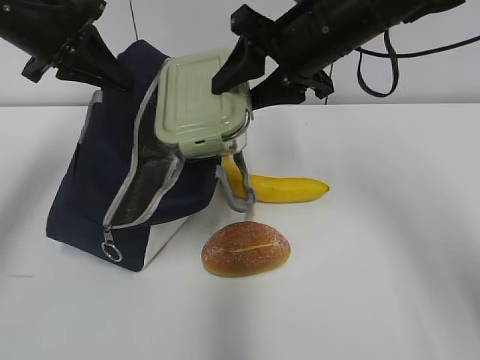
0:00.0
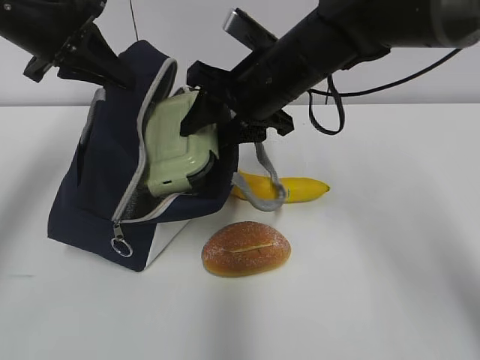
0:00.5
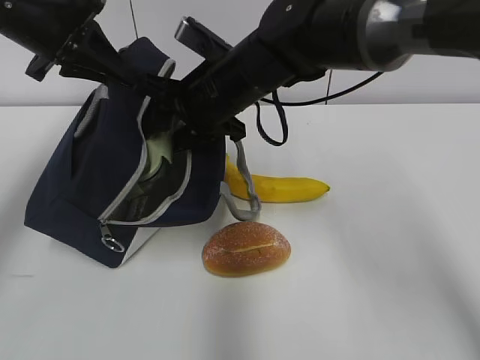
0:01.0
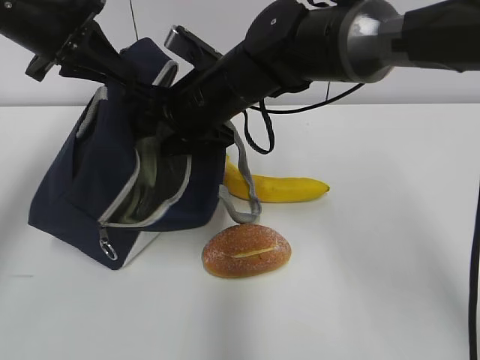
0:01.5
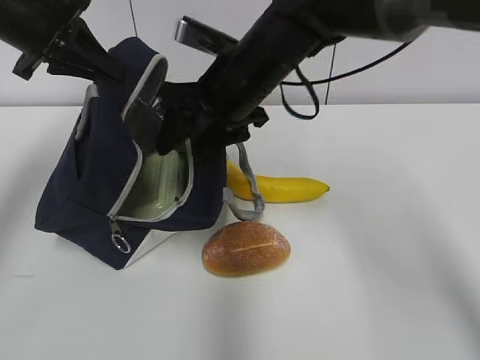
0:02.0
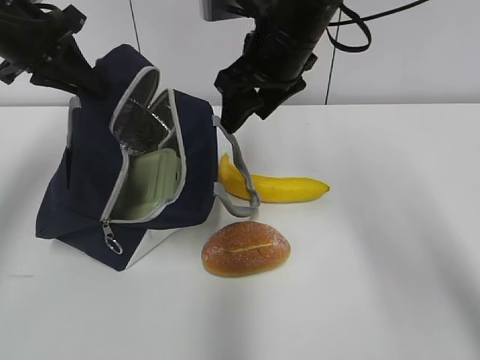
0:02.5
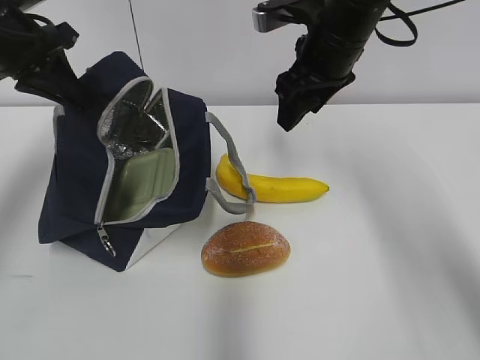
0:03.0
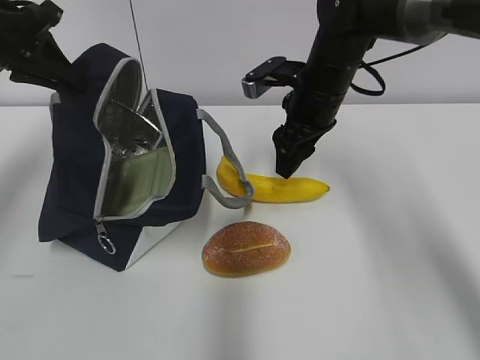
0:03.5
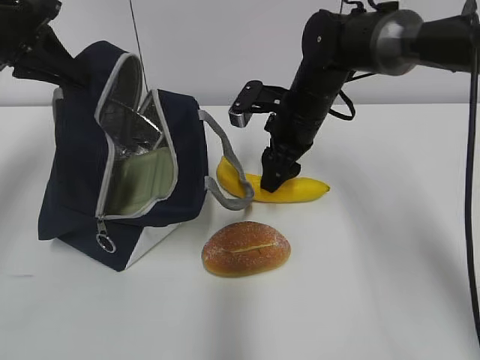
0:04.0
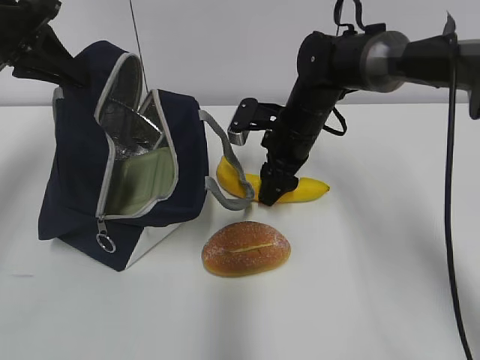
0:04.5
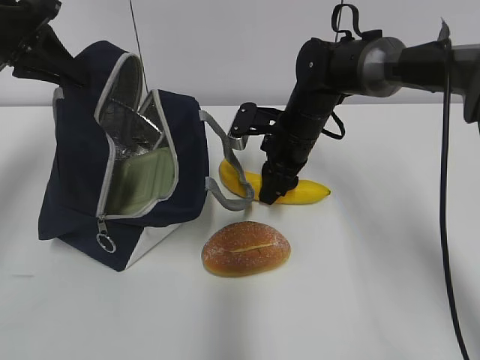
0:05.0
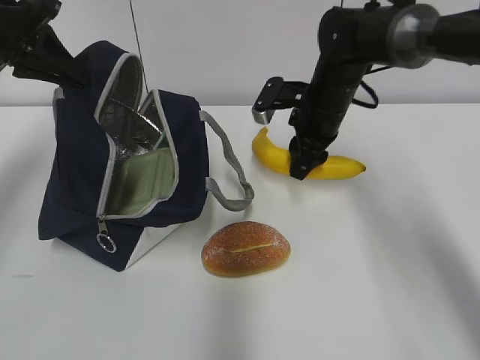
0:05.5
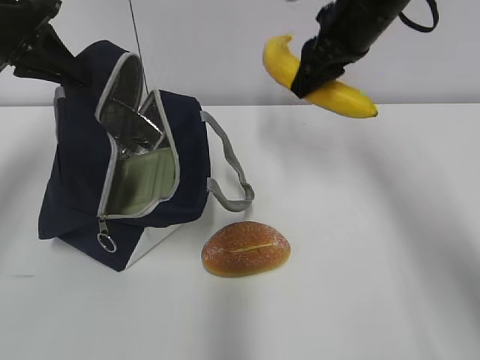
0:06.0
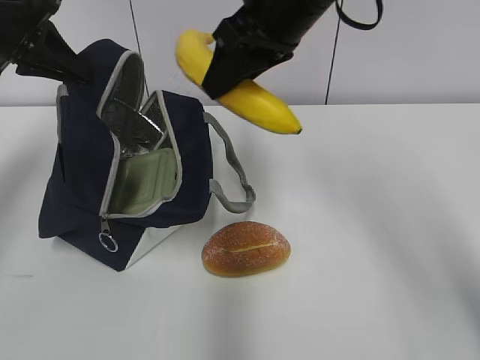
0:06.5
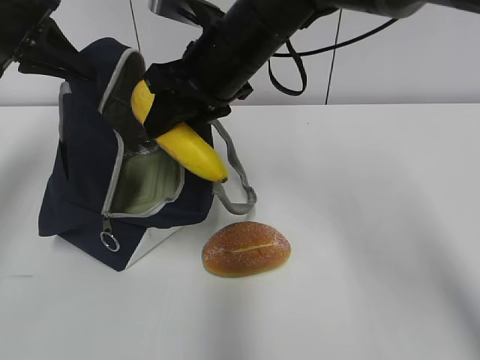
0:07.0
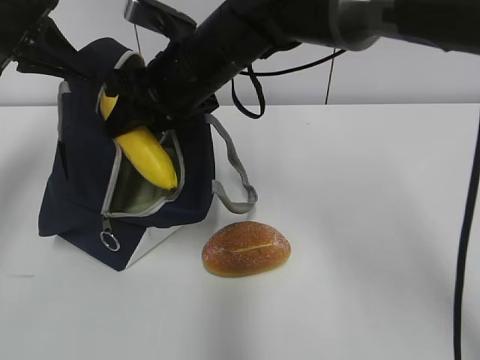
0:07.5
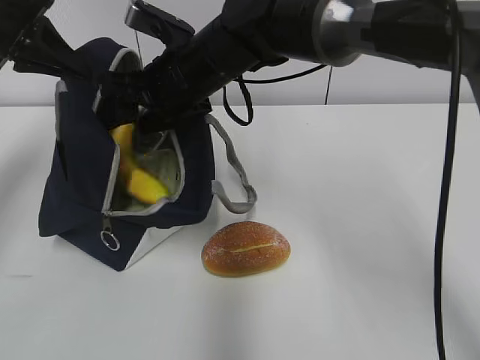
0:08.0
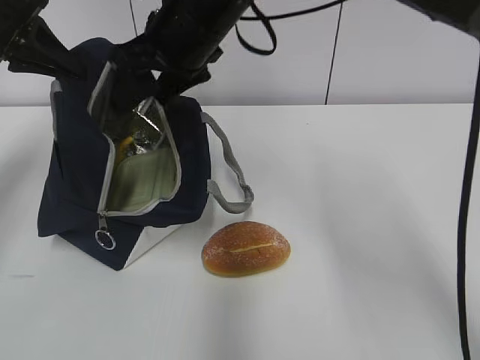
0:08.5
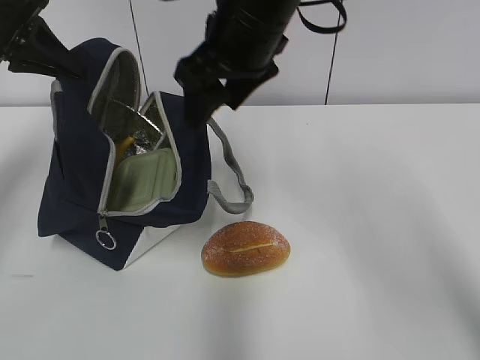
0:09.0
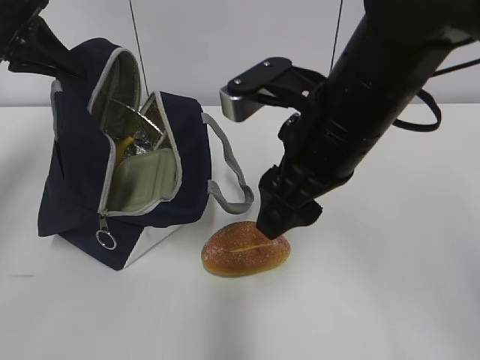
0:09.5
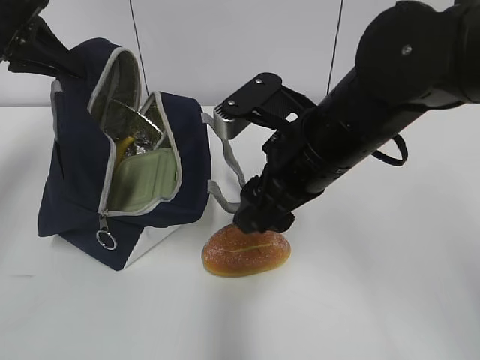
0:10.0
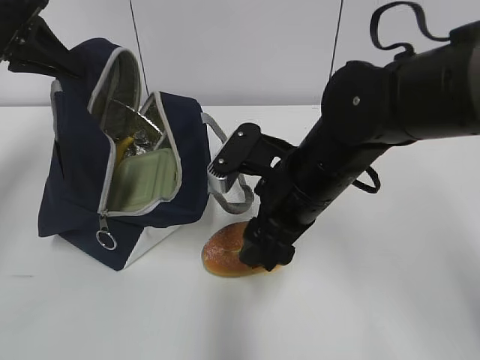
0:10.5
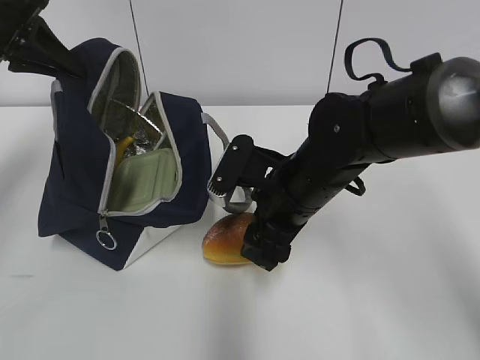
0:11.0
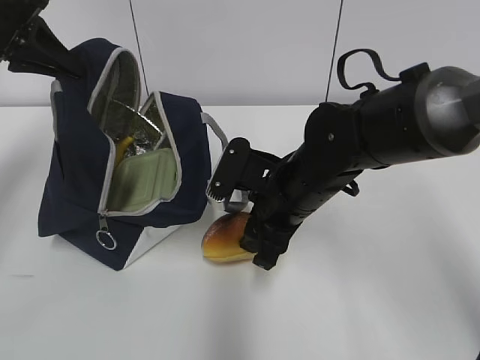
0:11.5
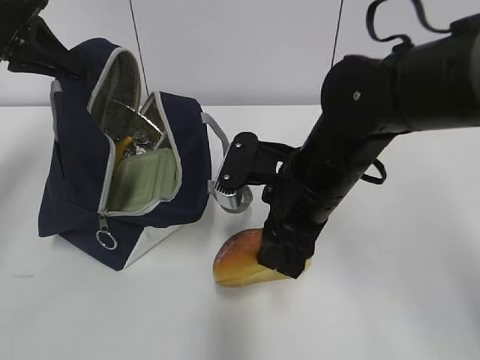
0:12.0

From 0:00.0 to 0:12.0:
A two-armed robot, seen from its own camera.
From 0:00.0 to 0:02.0: The right gripper heads to the left and downward, covering approximately 10 cm.
From 0:02.0 to 0:04.0: The right gripper goes some 15 cm to the right, downward and forward.
From 0:04.0 to 0:06.0: The right gripper shifts approximately 15 cm upward.
From 0:06.0 to 0:08.0: The right gripper heads to the left, covering about 20 cm.
From 0:08.0 to 0:10.0: The right gripper travels to the right and backward by some 15 cm.
From 0:10.0 to 0:12.0: The right gripper shifts some 5 cm downward.

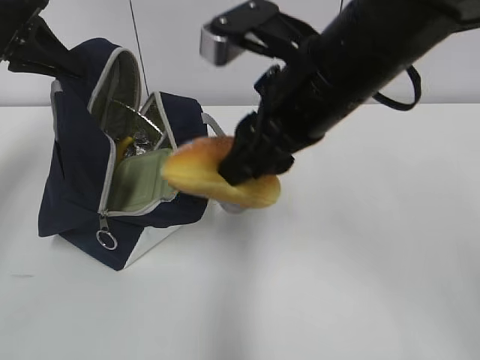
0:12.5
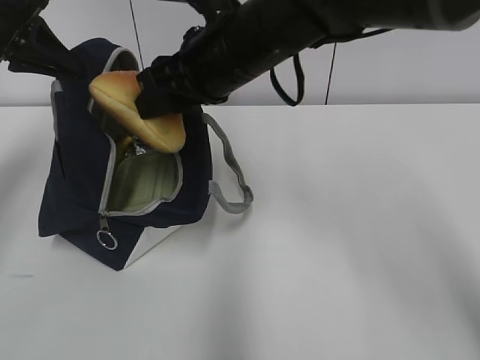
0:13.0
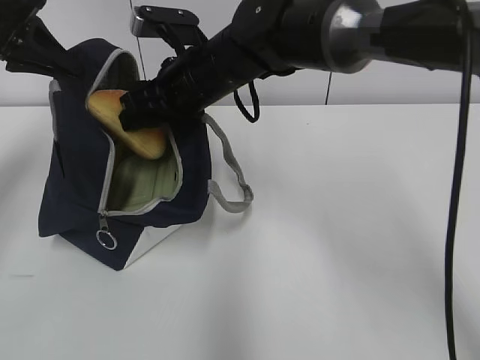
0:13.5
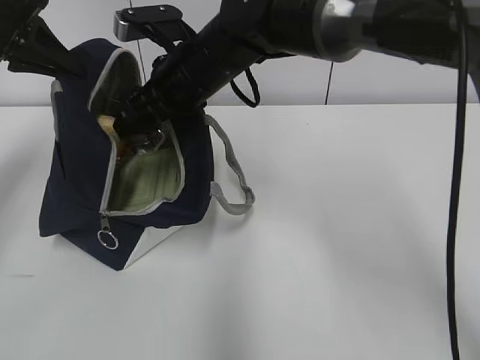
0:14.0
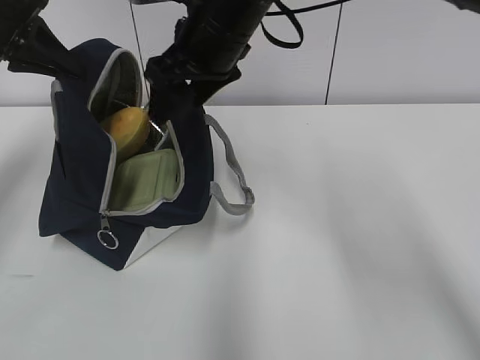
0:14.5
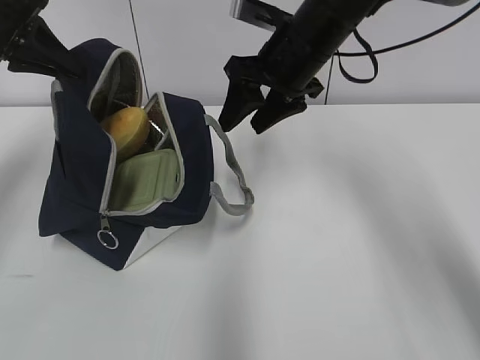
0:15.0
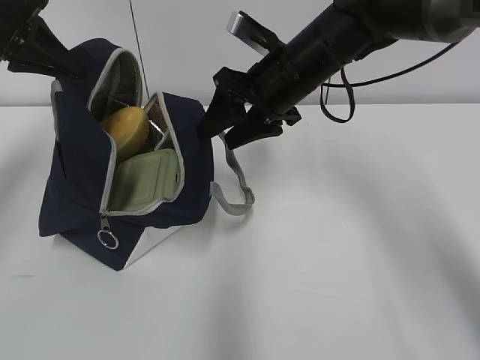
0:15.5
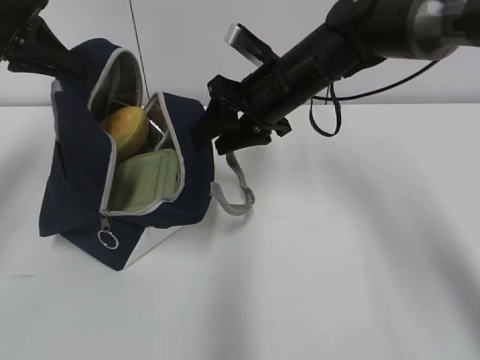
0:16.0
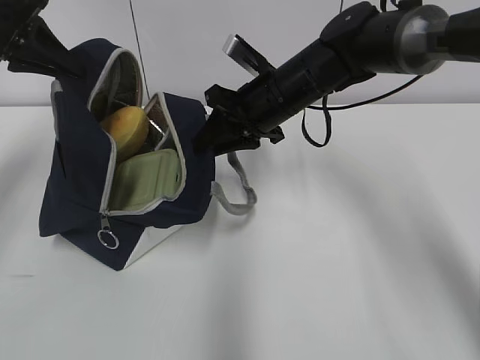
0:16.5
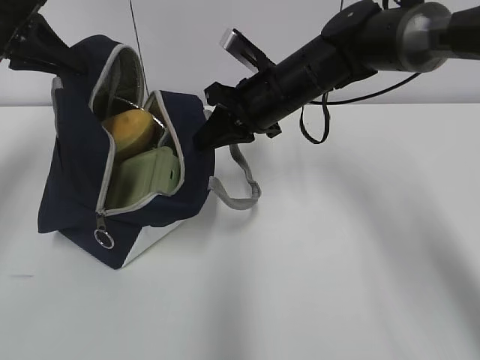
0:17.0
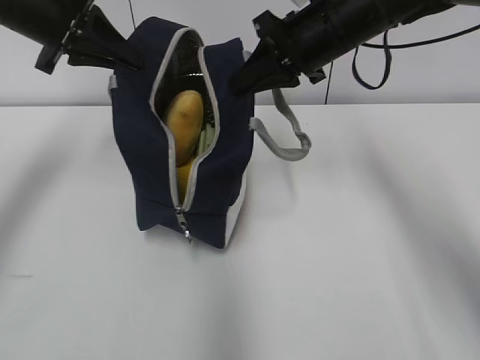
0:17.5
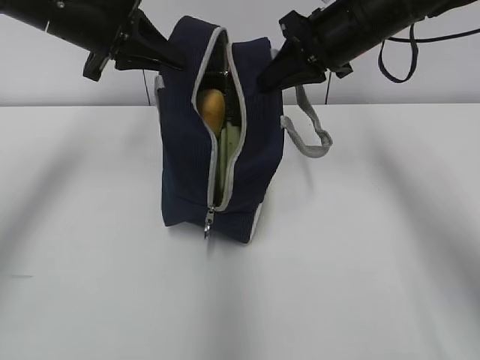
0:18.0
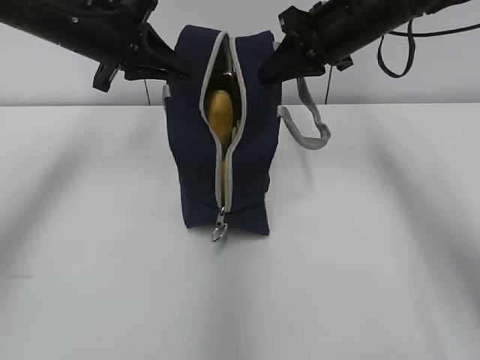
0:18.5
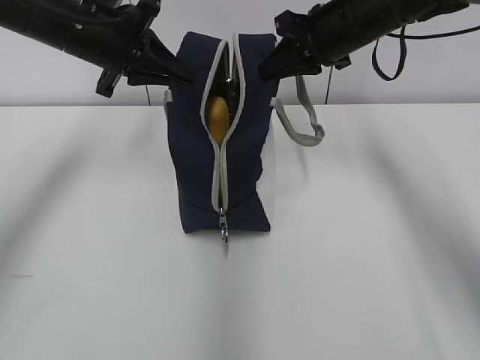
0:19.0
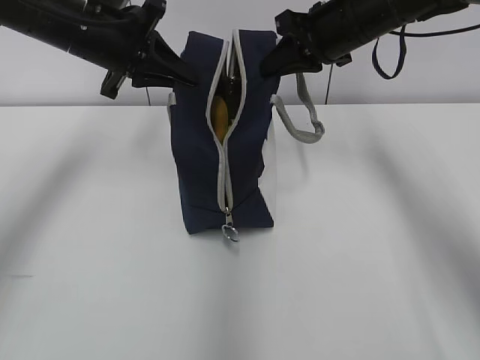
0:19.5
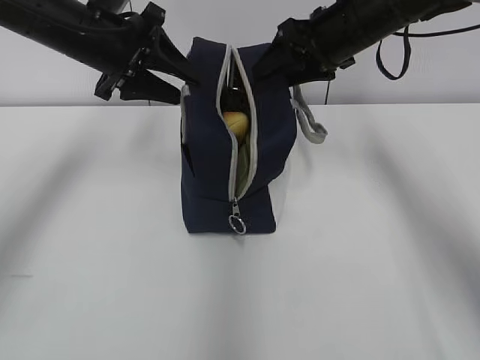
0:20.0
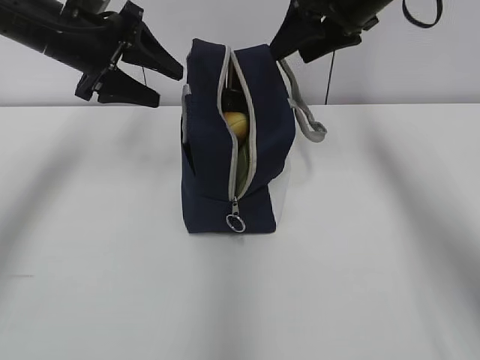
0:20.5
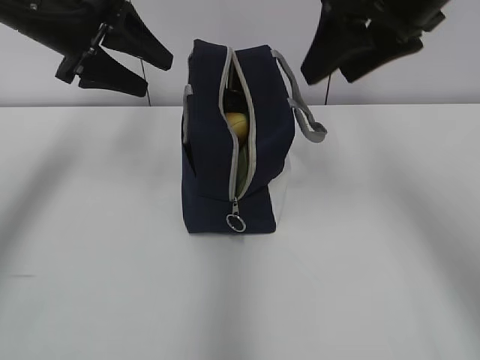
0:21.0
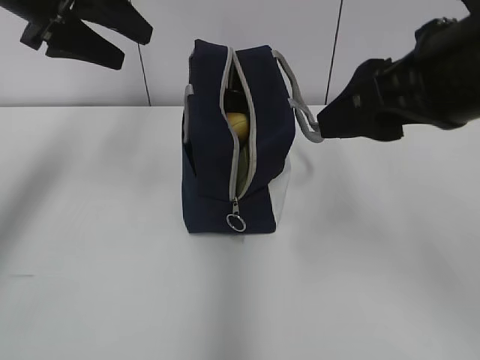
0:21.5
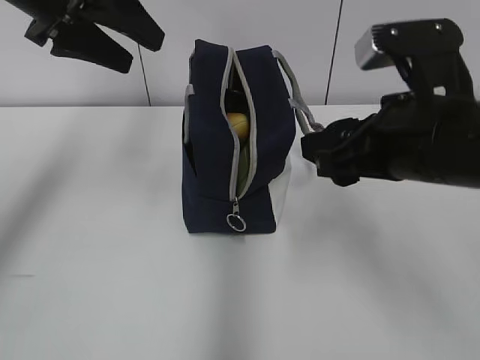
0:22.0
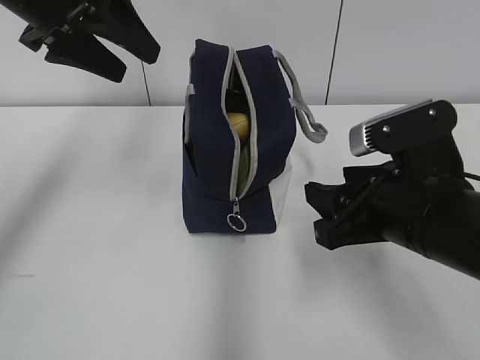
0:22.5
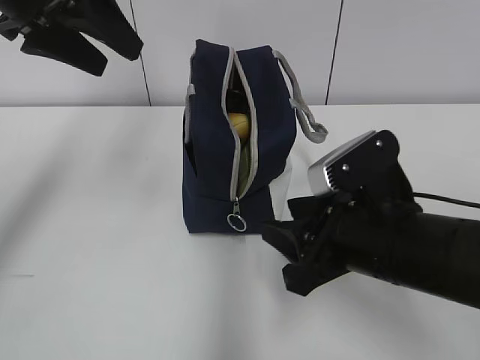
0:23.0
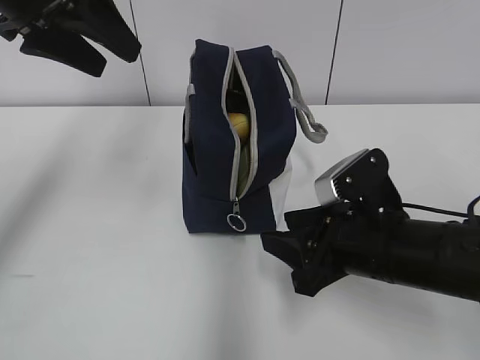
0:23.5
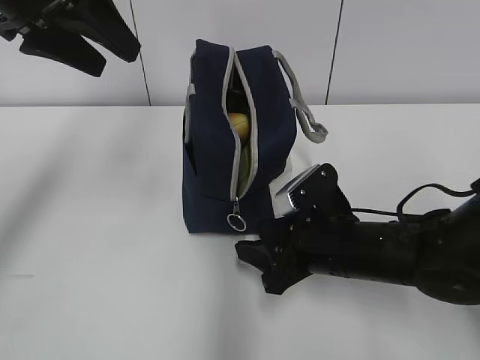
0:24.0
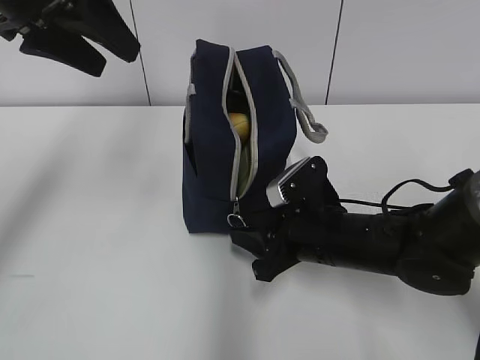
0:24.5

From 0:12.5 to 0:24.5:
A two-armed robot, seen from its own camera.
From 0:12.5 to 0:14.5: The right gripper shifts about 15 cm forward and to the left, and opens its fingers.
From 0:14.5 to 0:16.5: The right gripper goes approximately 10 cm downward and to the right, and closes up.
From 0:16.5 to 0:18.5: The left gripper goes about 10 cm to the right, while the right gripper goes some 10 cm upward and to the right, and closes up.
From 0:18.5 to 0:20.5: The left gripper opens, while the right gripper opens its fingers.
From 0:20.5 to 0:22.5: The left gripper heads upward and backward, covering roughly 10 cm. The right gripper heads backward and downward, covering some 25 cm.
From 0:22.5 to 0:24.5: The right gripper shifts some 15 cm downward and forward.

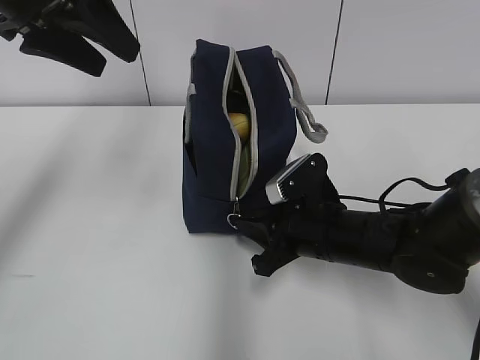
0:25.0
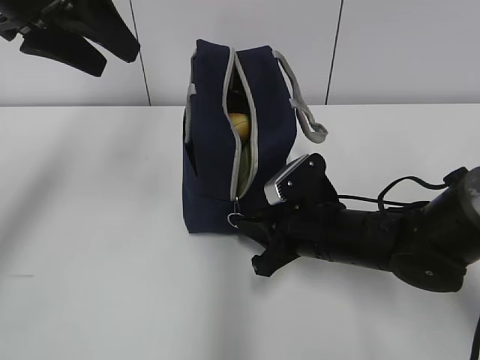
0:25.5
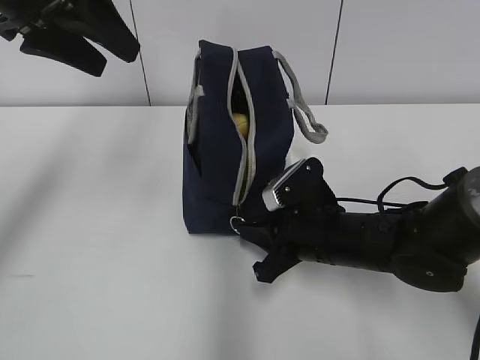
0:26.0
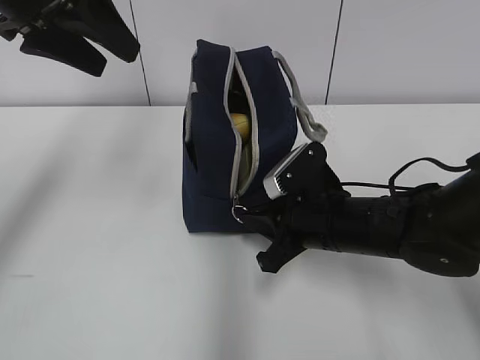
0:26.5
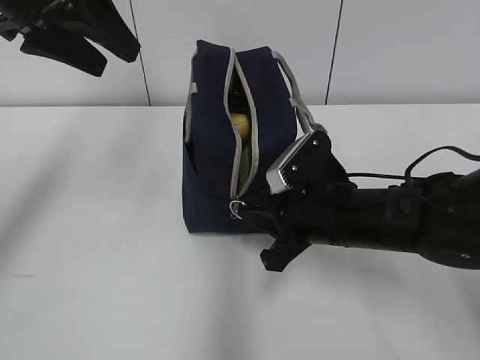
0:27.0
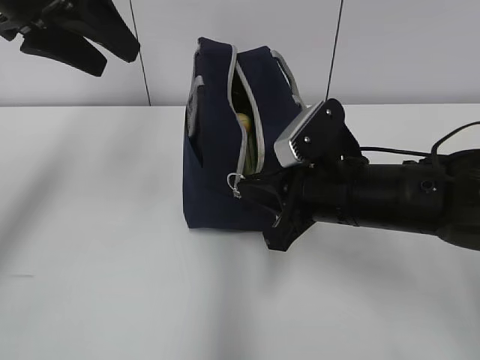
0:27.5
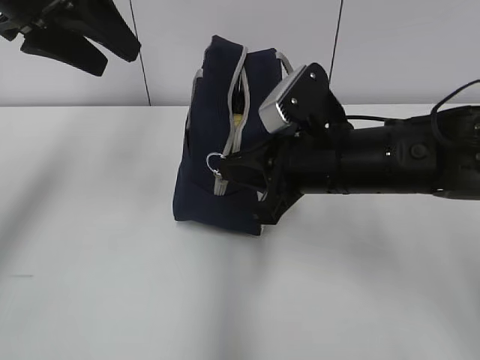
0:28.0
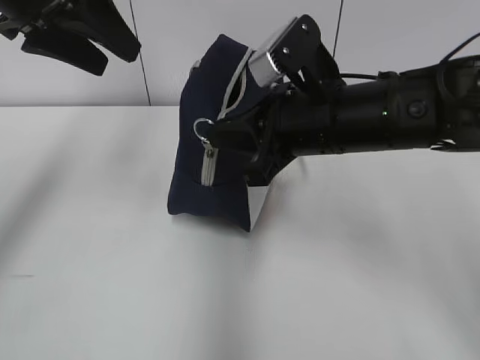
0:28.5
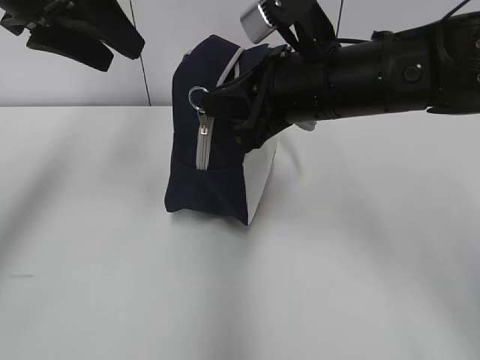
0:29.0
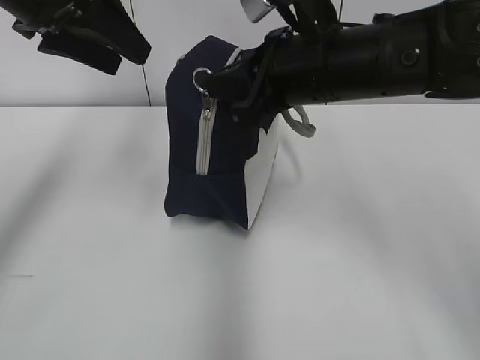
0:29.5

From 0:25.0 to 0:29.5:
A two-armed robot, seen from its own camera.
From 0:25.0 to 0:27.0: The grippers move only a little.
From 0:27.0 to 0:29.5: The right gripper shifts some 15 cm upward.
